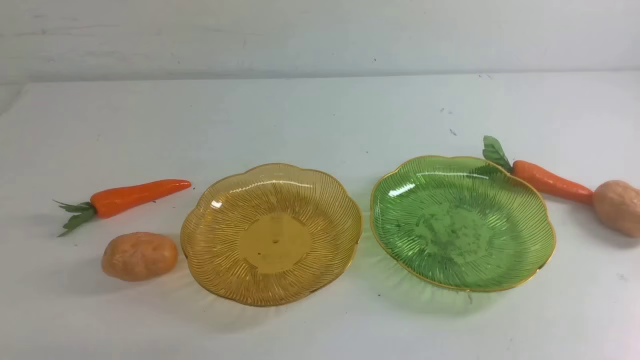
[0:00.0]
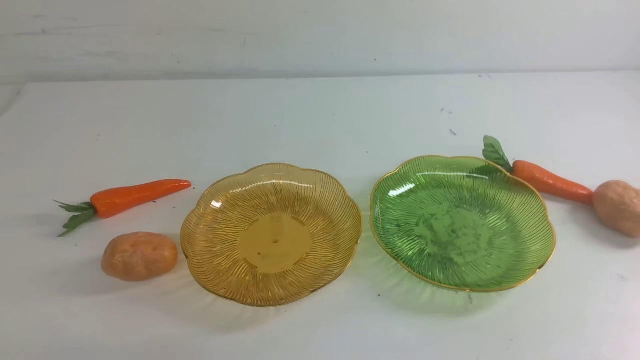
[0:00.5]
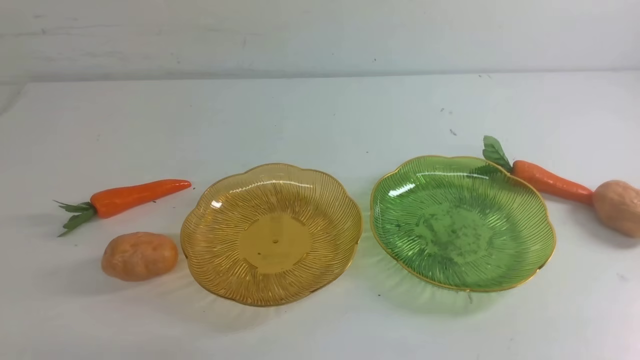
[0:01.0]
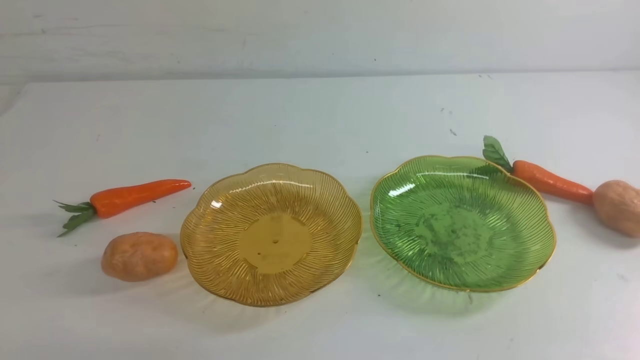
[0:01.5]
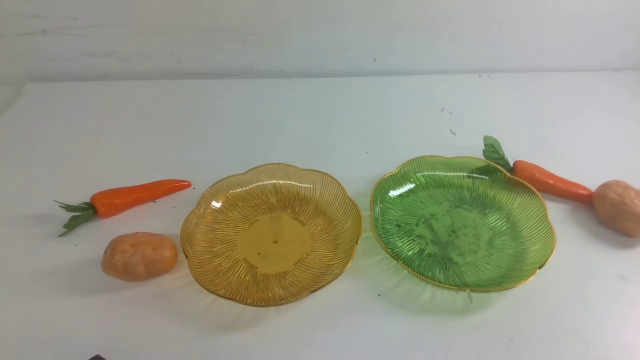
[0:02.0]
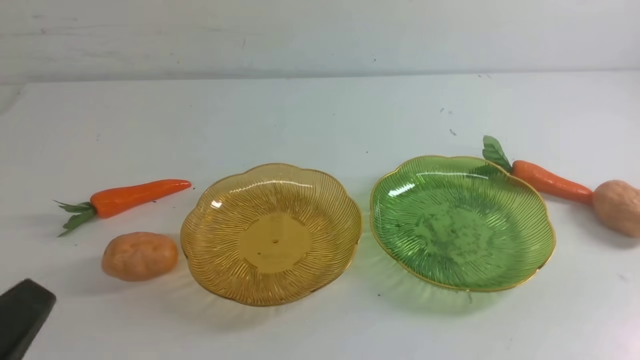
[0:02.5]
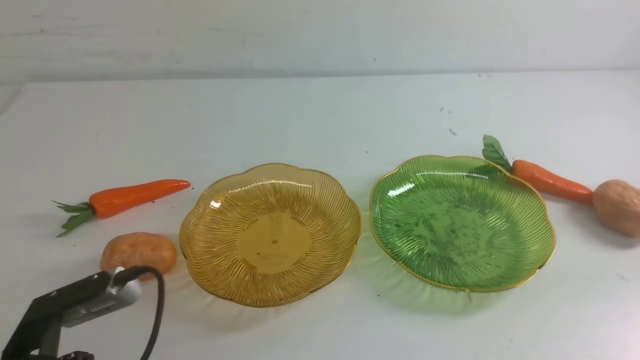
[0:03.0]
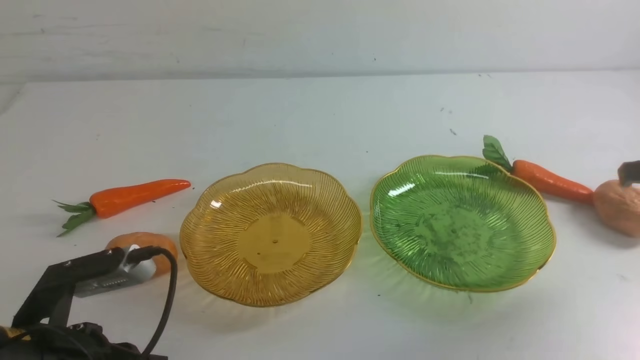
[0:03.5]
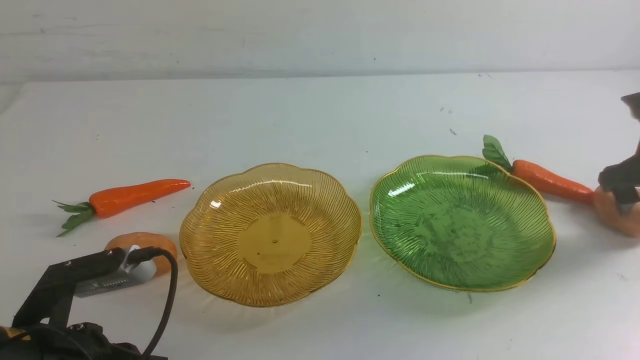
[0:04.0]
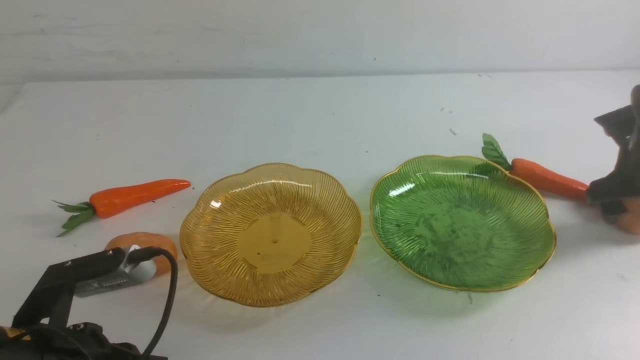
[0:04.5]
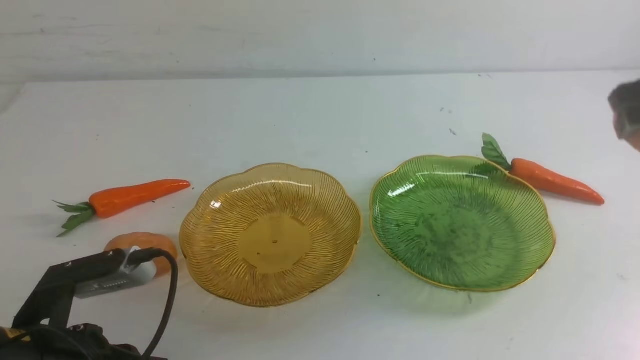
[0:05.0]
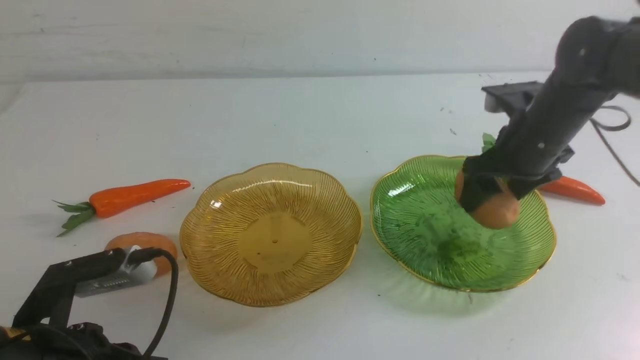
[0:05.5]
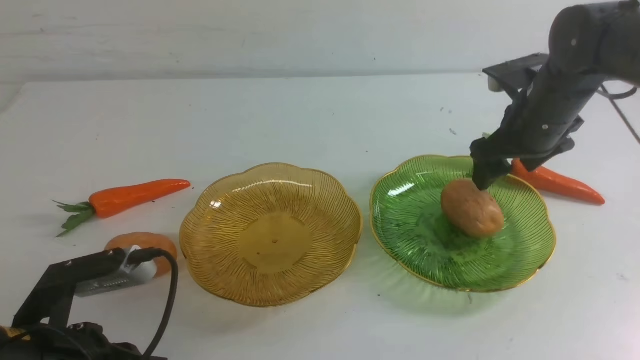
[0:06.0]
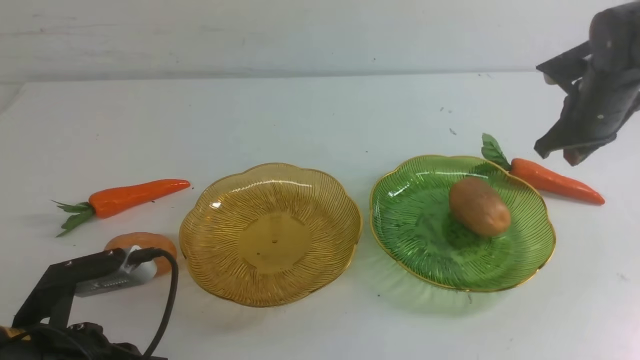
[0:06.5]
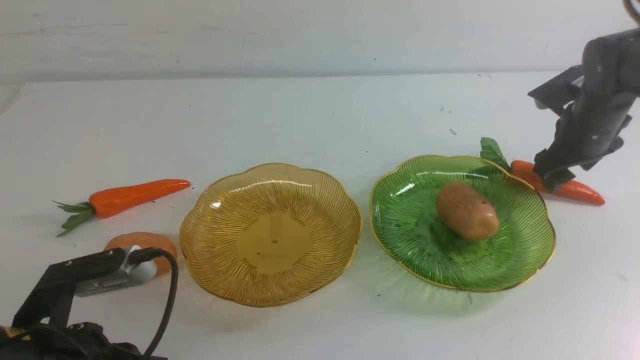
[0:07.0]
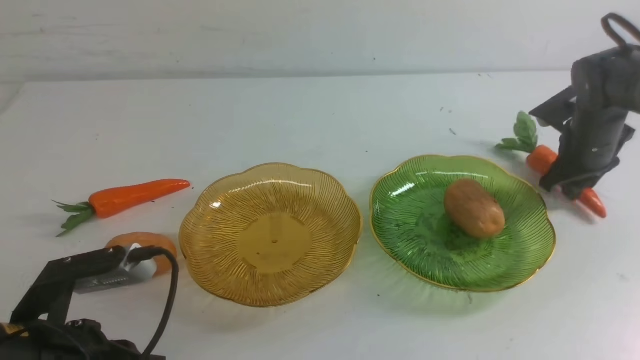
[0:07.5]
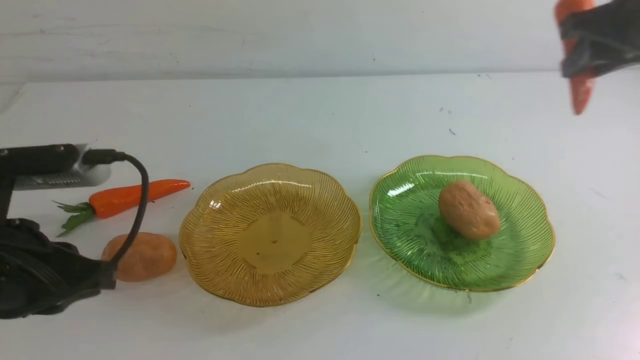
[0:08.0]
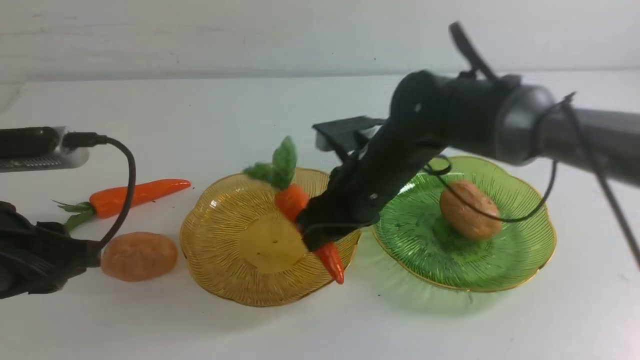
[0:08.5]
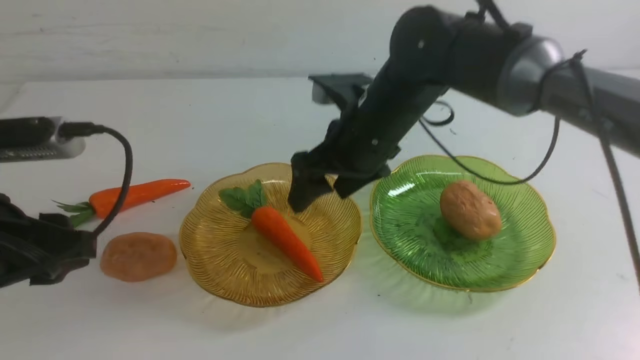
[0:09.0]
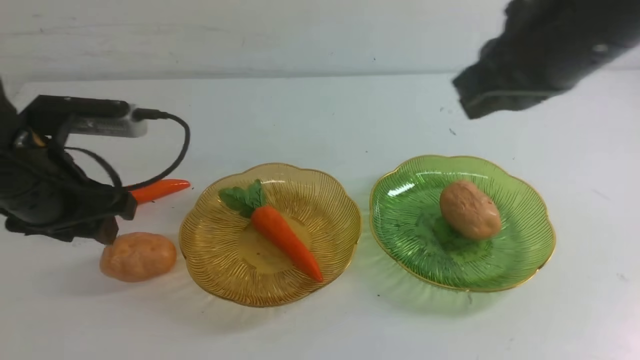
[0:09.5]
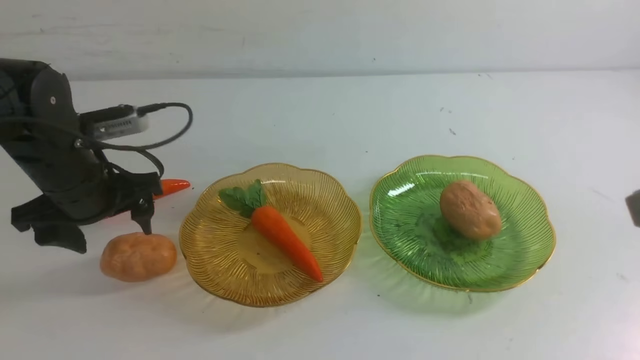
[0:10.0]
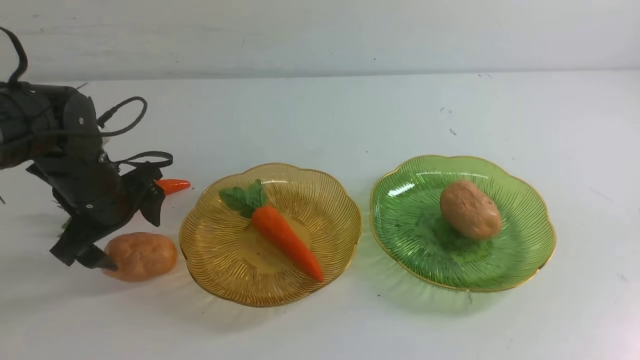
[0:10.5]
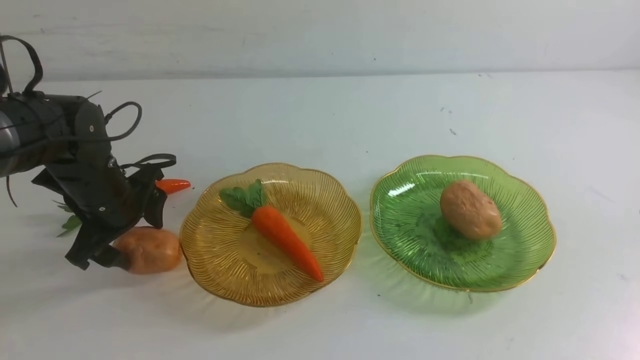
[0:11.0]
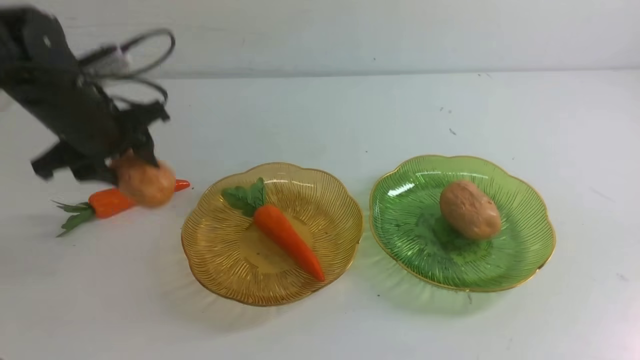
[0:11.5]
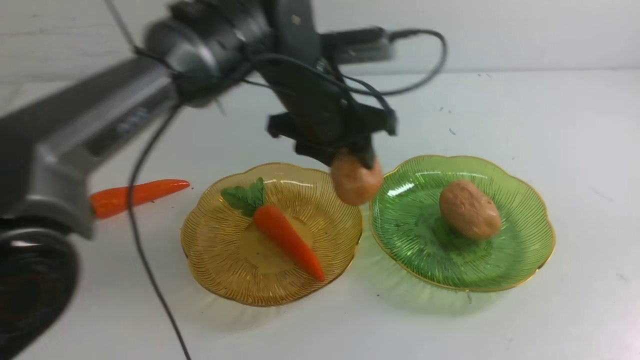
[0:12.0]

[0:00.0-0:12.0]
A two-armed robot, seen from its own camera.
Step, 0:00.0 to 0:06.0: Grab a potato with your right arm and put it on the right plate.
Step, 0:06.5 to 0:09.0: use the right arm to grab a carrot and put it into the left plate.
0:02.0 to 0:04.0: The left gripper is displaced forward by some 10 cm. Meanwhile the right gripper heads forward, covering some 35 cm, and opens up.
0:04.0 to 0:06.0: The right gripper heads to the left, covering approximately 10 cm, and closes its fingers.
0:06.0 to 0:08.0: Both grippers travel together upward, some 10 cm.
0:08.0 to 0:10.0: The right gripper travels backward by some 25 cm, and closes up. The left gripper heads forward, covering some 15 cm, and opens.
0:10.0 to 0:12.0: The left gripper travels to the right by some 25 cm.

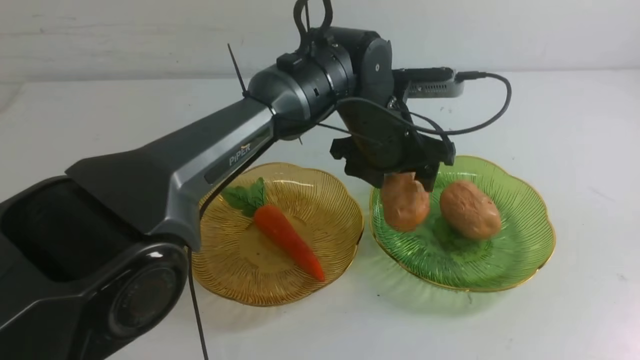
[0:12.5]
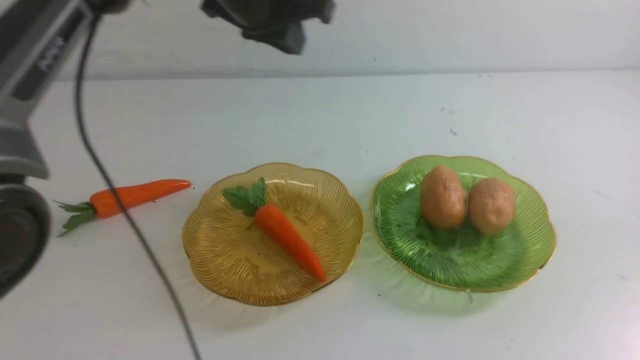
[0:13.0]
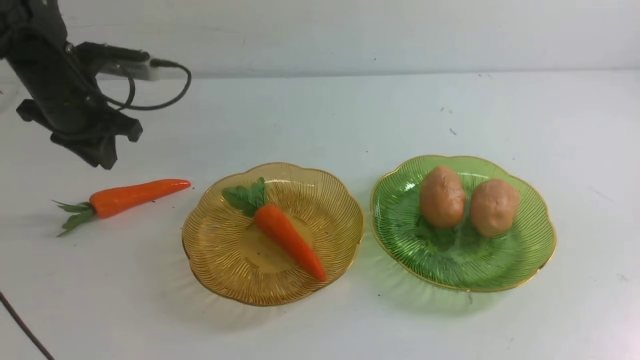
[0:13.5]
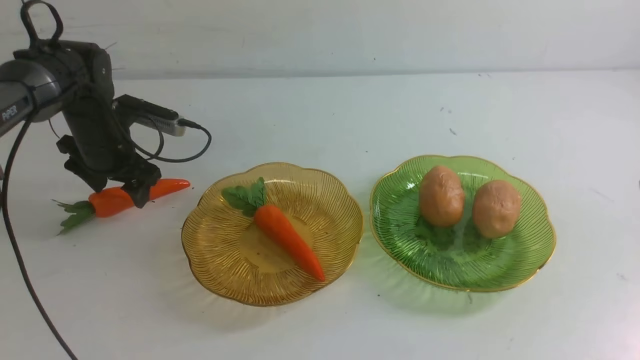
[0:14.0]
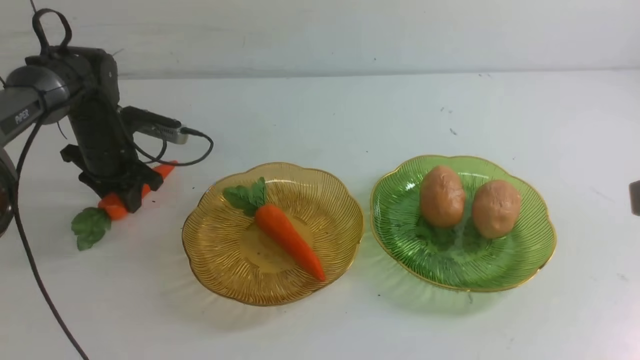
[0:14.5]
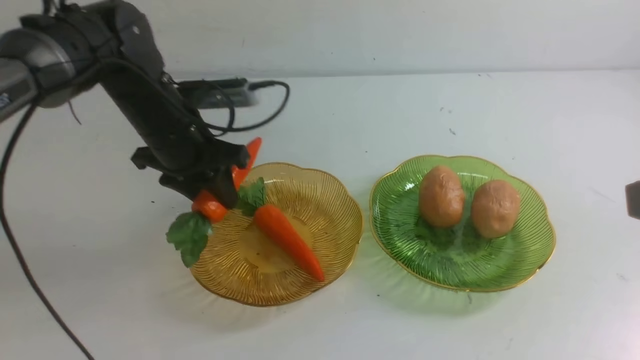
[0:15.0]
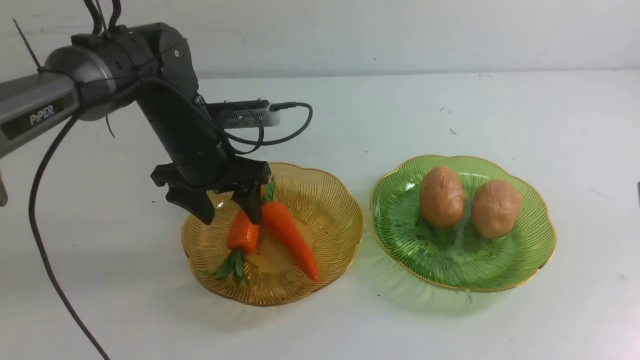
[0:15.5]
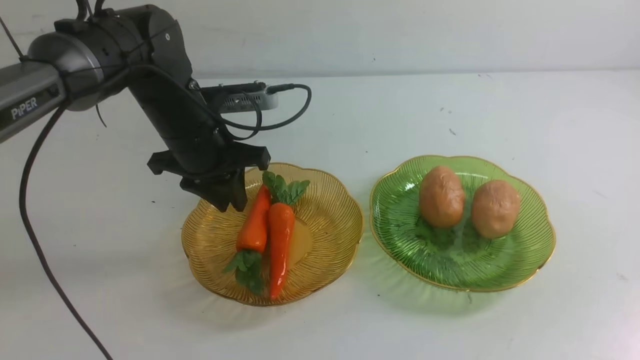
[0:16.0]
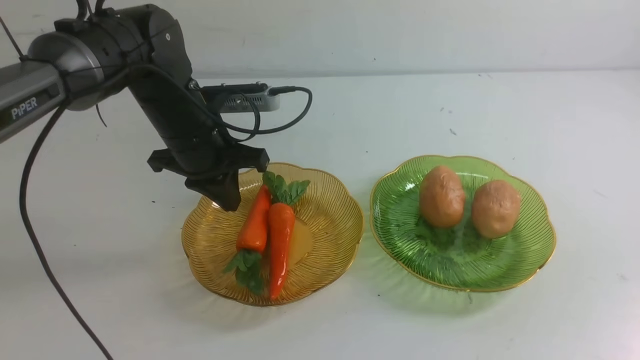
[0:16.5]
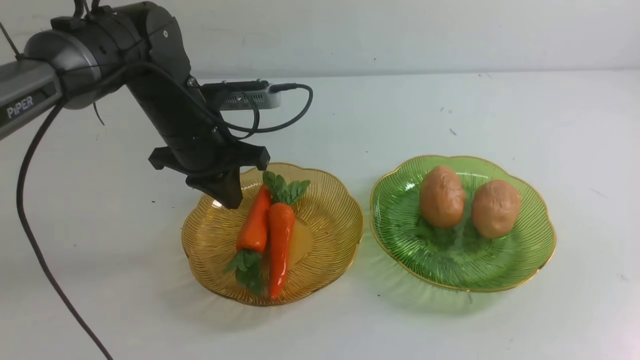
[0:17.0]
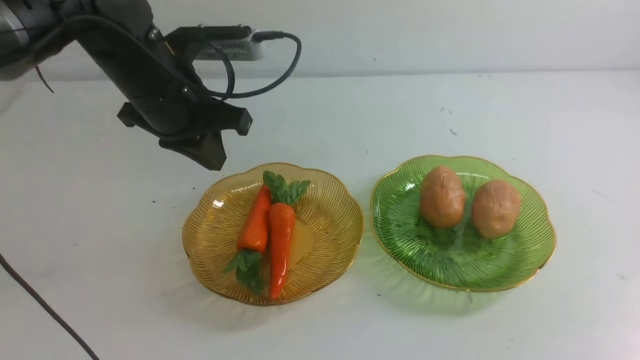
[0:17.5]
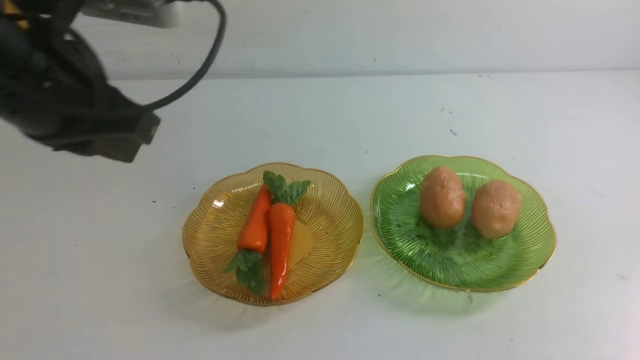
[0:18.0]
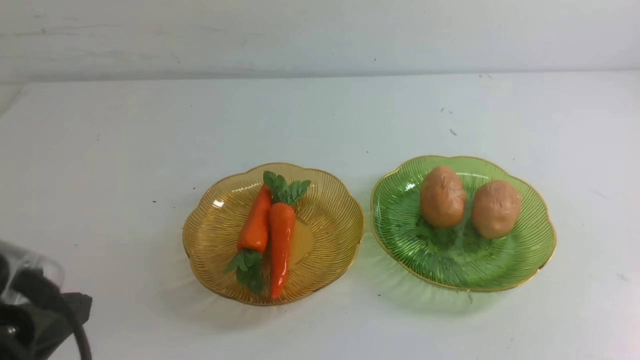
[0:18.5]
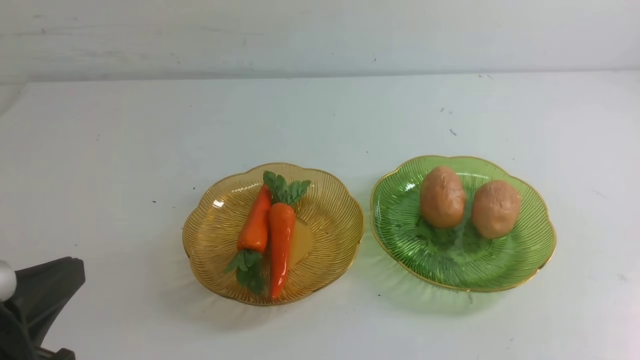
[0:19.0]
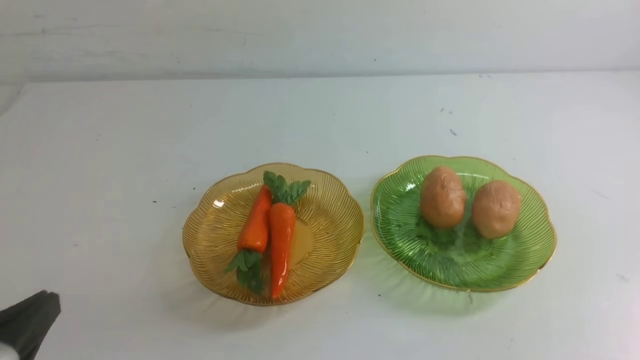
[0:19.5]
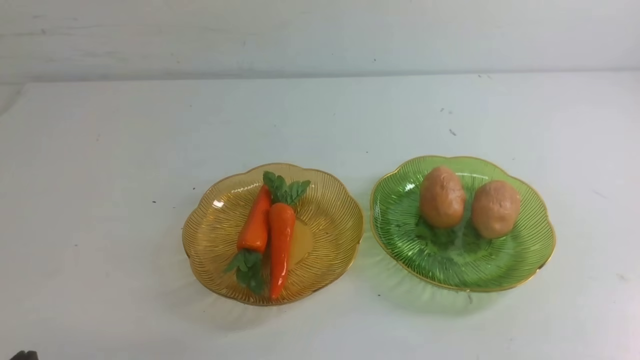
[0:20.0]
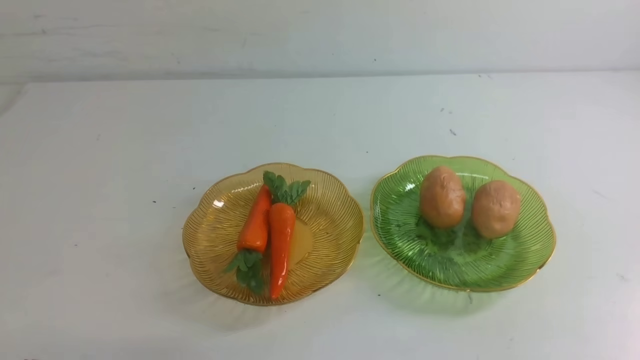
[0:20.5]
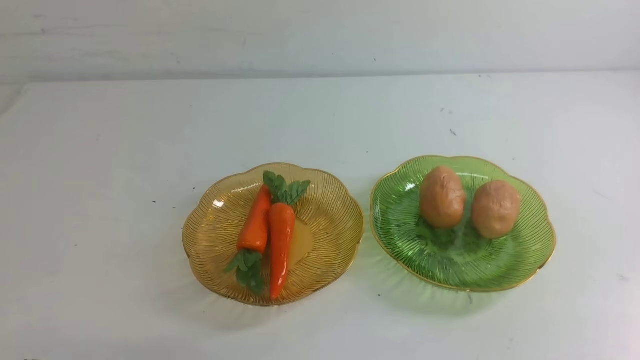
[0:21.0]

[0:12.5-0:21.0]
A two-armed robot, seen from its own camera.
Step, 0:13.0 to 0:16.0: use the left arm to grab a carrot and put it into the left plate.
0:12.5 to 0:14.5: The left gripper goes approximately 15 cm to the left and downward.
0:14.5 to 0:16.5: The left gripper is displaced upward by roughly 5 cm, and closes its fingers, while the right gripper is displaced downward and backward by roughly 15 cm.
0:16.5 to 0:19.0: The left gripper travels backward by approximately 30 cm, while the right gripper goes roughly 10 cm downward.
0:19.0 to 0:21.0: The left gripper goes approximately 10 cm downward.
